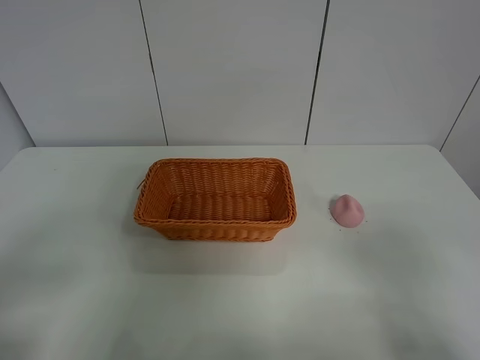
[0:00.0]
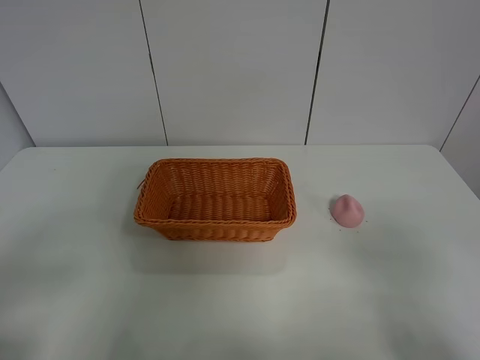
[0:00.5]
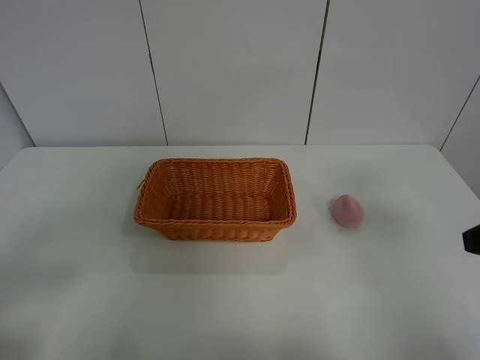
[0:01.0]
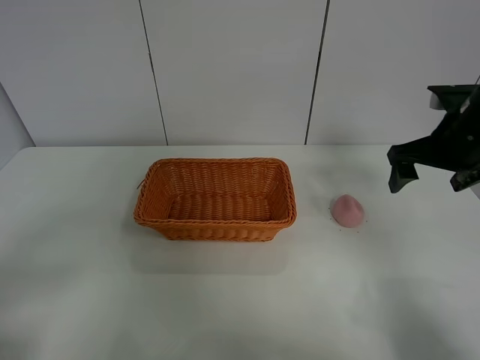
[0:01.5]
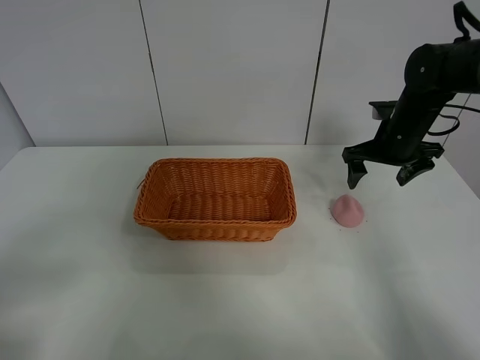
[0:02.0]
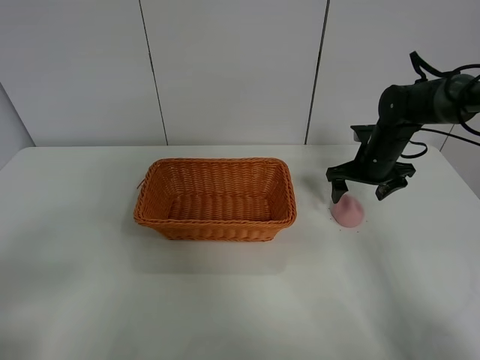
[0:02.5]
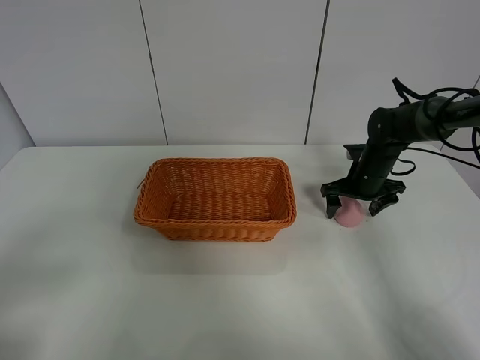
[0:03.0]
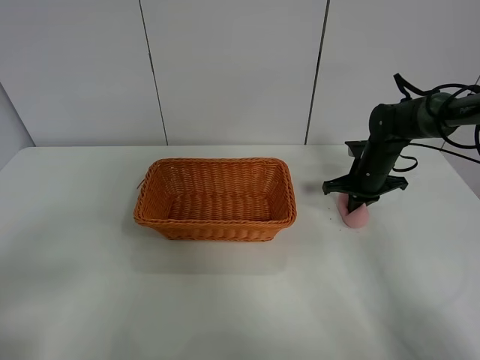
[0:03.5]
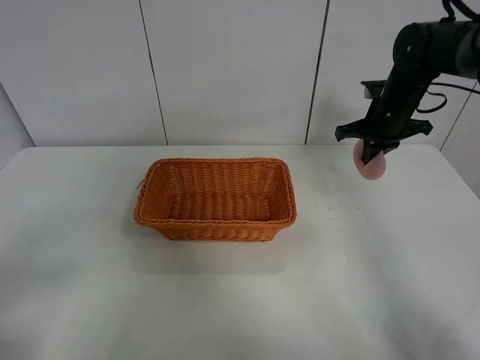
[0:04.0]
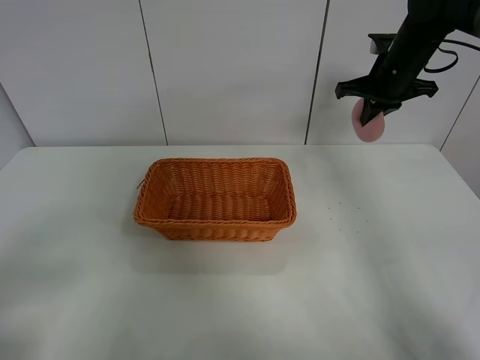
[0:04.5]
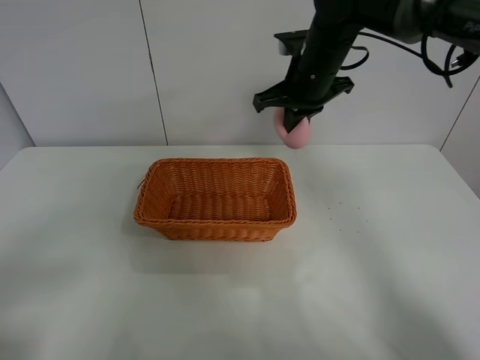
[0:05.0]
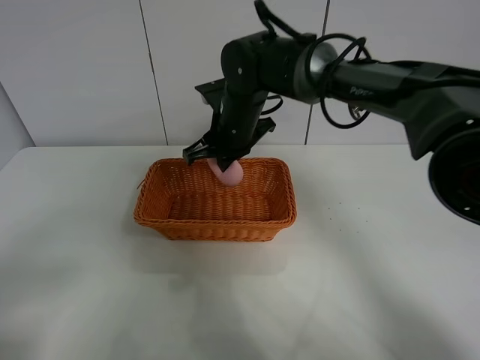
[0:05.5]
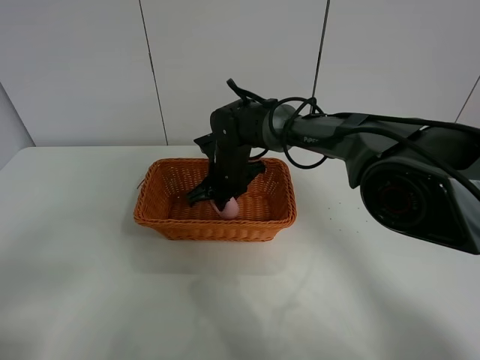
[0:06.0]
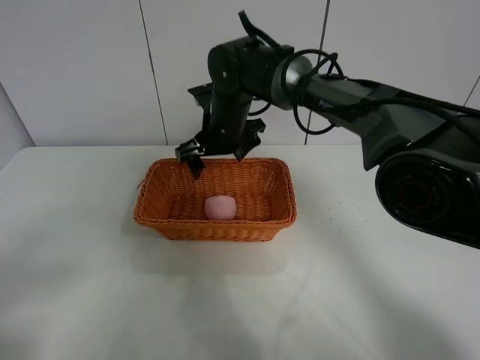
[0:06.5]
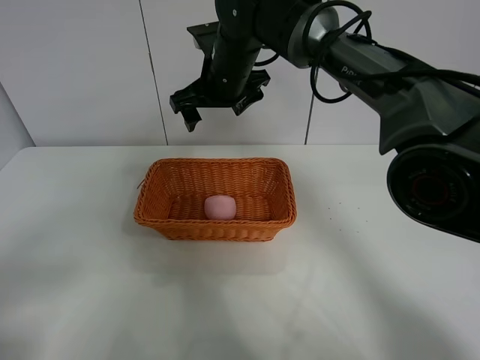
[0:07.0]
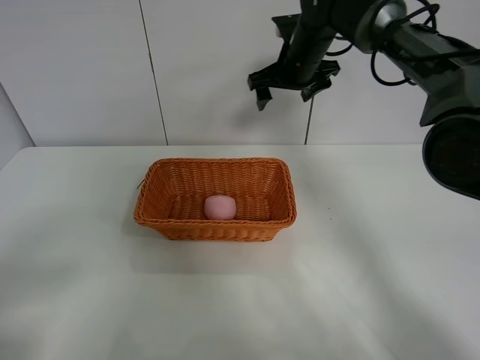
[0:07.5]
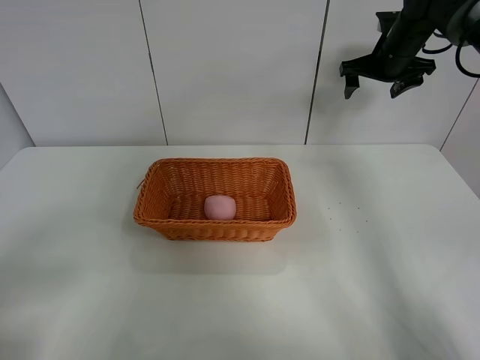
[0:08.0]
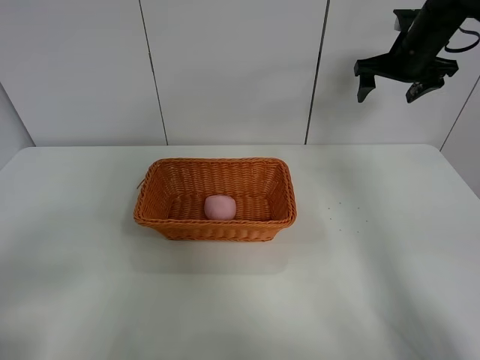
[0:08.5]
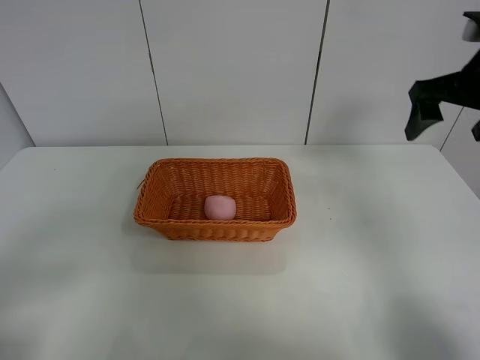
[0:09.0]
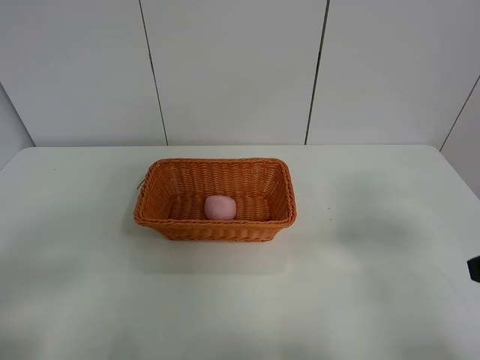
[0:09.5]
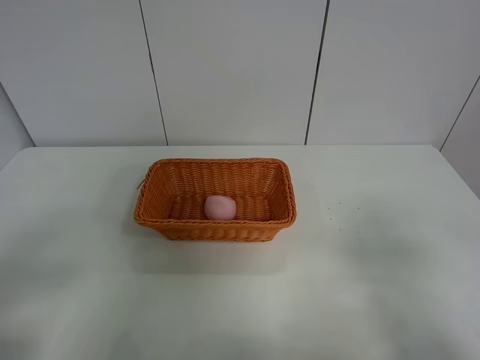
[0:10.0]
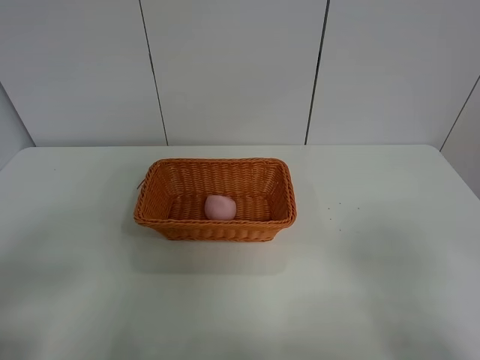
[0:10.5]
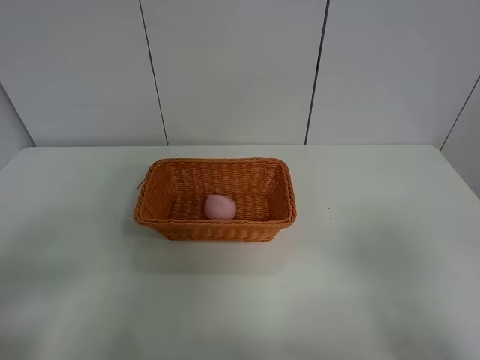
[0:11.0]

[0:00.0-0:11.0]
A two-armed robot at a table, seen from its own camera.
Step, 0:00.0 to 0:03.5: Grasp the peach with right gripper.
Step, 0:04.0 to 0:06.5: Place the peach in the basket with right gripper.
0:00.0 to 0:02.0: The right gripper travels forward by approximately 40 cm.
0:02.0 to 0:03.5: The right gripper heads downward, covering approximately 10 cm, and closes up.
0:03.5 to 0:05.5: The right gripper travels to the left and upward by approximately 30 cm.
0:05.5 to 0:07.5: The right gripper is displaced to the right, forward and upward by about 15 cm, and opens its fingers.
0:07.5 to 0:09.0: The right gripper is displaced to the right and backward by some 25 cm.
0:09.0 to 0:11.0: The right gripper heads backward, covering approximately 30 cm.
